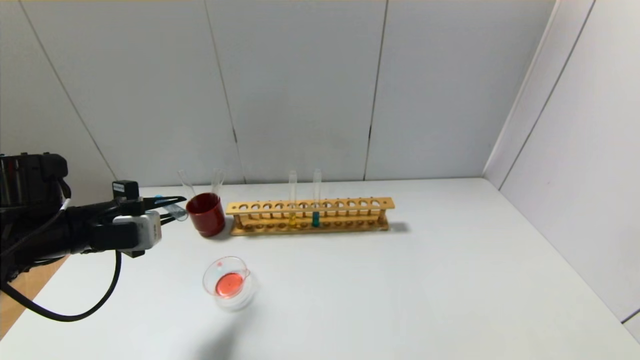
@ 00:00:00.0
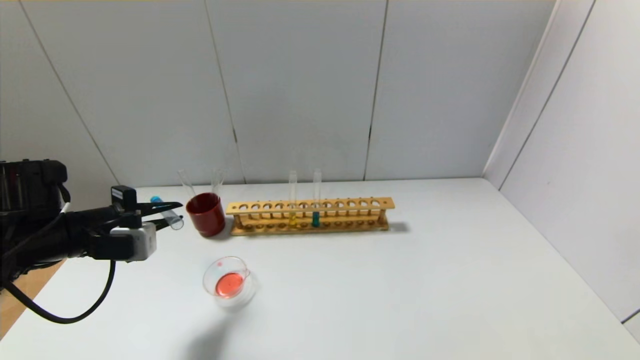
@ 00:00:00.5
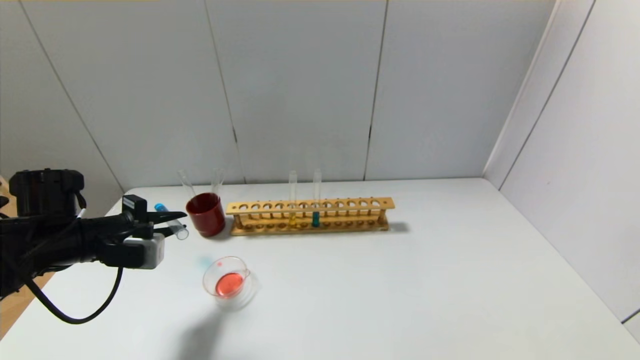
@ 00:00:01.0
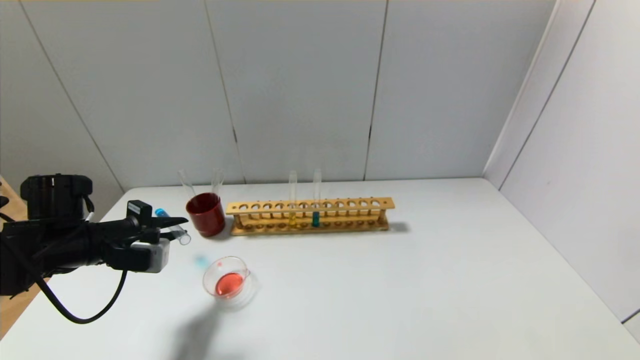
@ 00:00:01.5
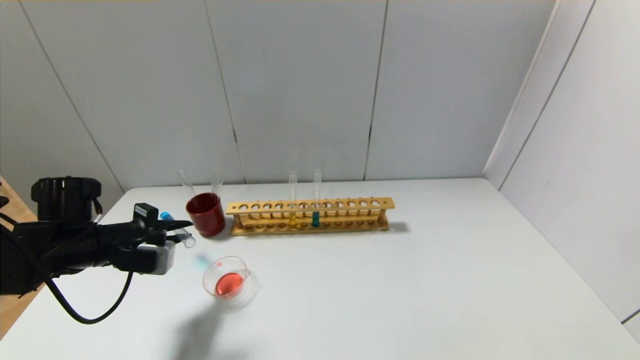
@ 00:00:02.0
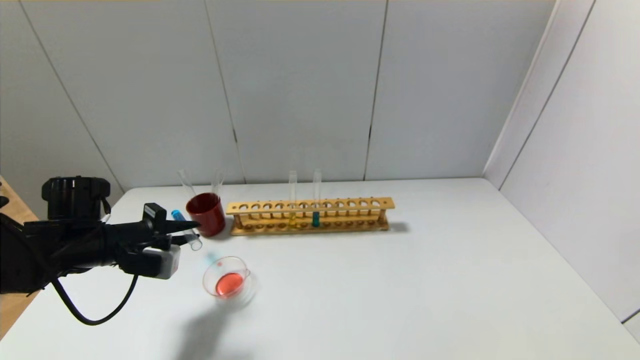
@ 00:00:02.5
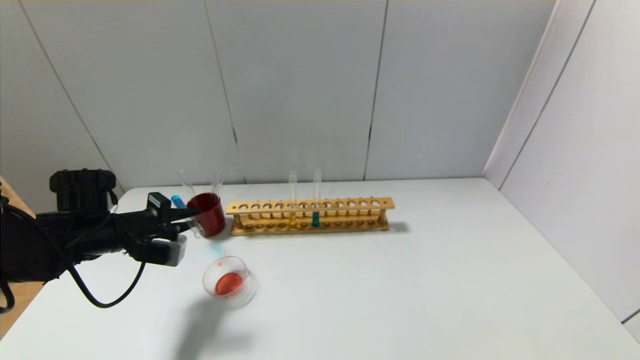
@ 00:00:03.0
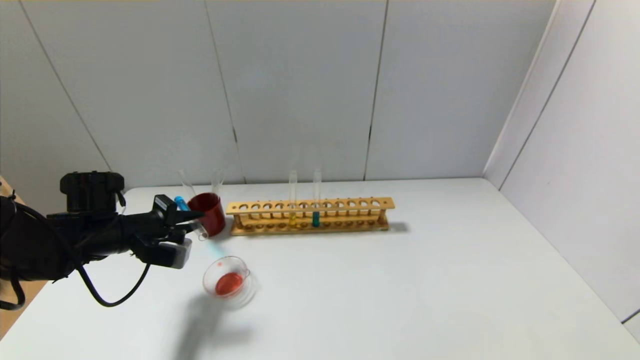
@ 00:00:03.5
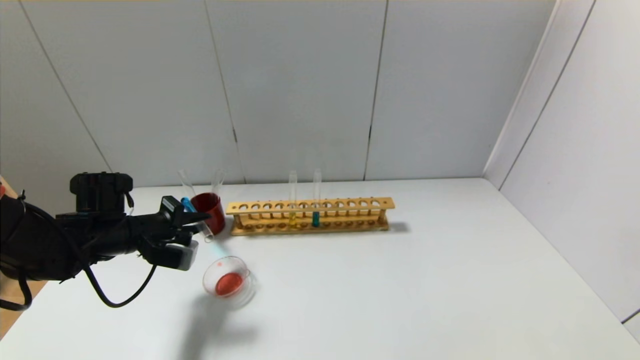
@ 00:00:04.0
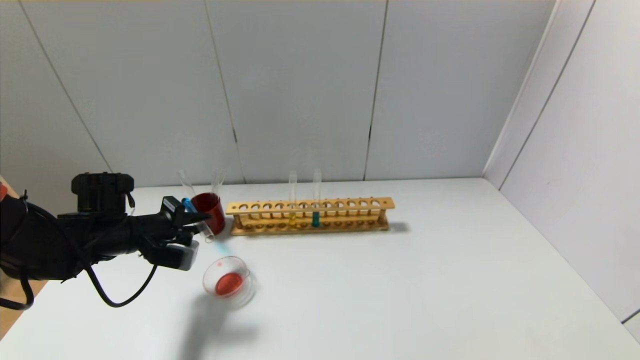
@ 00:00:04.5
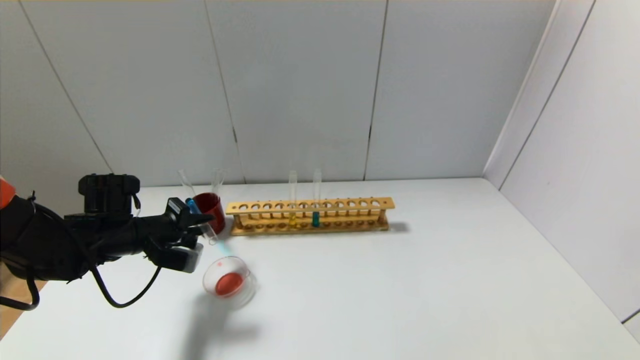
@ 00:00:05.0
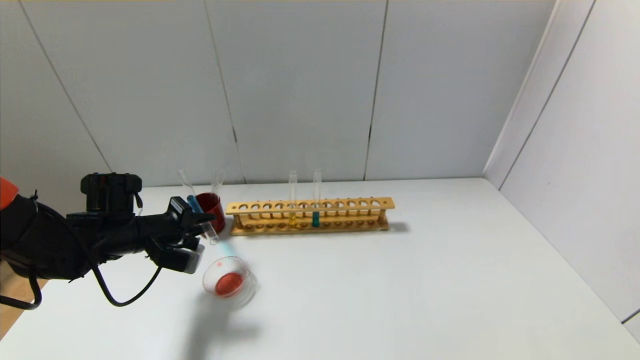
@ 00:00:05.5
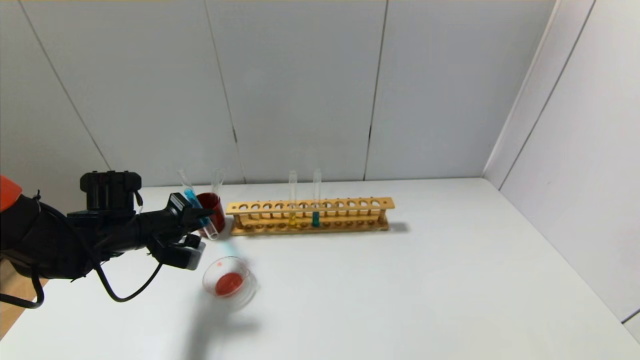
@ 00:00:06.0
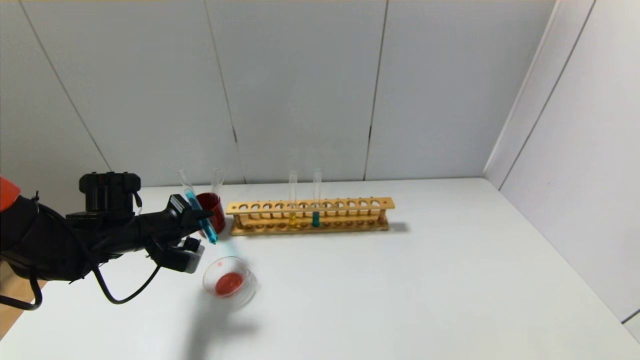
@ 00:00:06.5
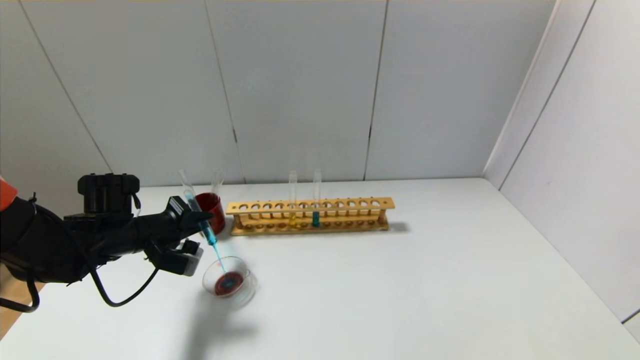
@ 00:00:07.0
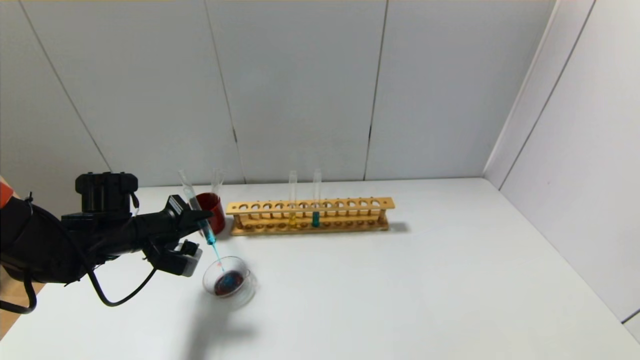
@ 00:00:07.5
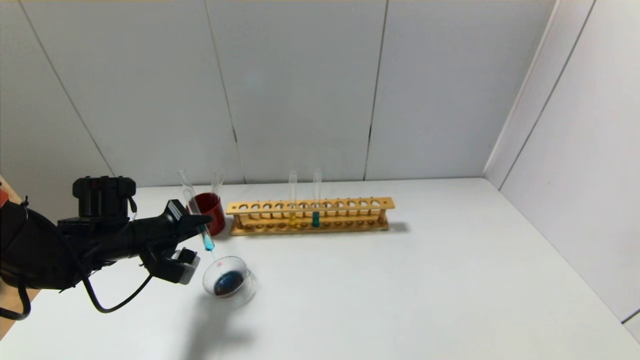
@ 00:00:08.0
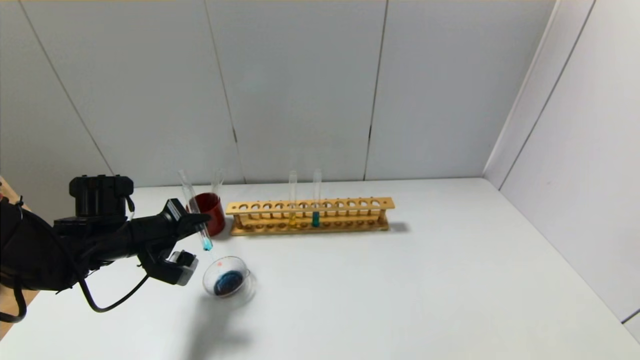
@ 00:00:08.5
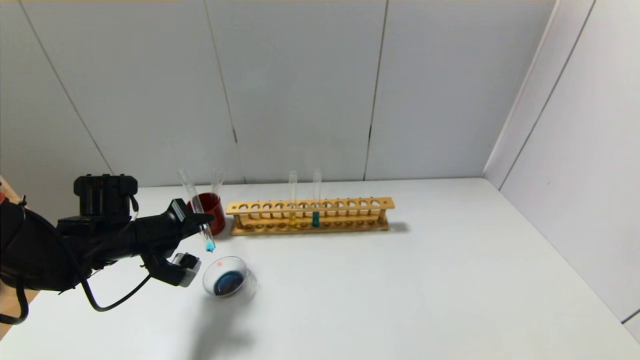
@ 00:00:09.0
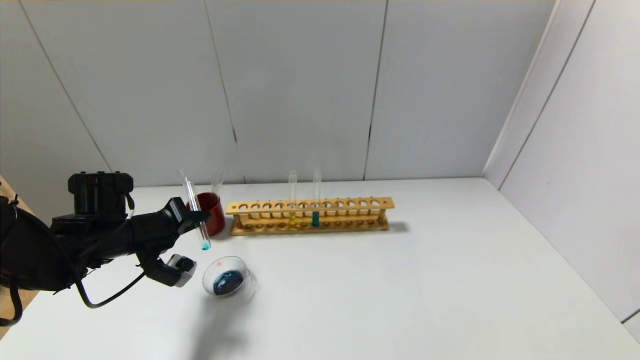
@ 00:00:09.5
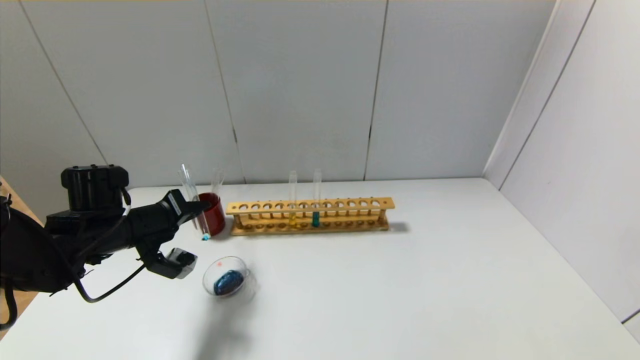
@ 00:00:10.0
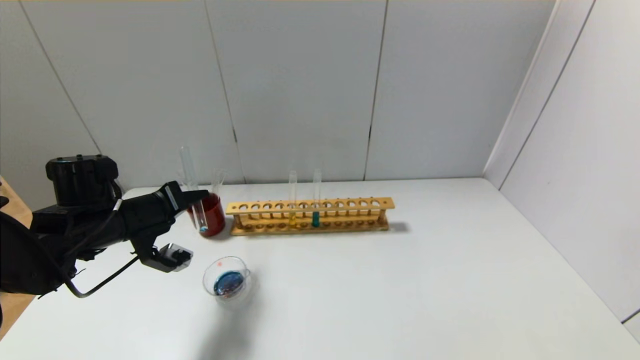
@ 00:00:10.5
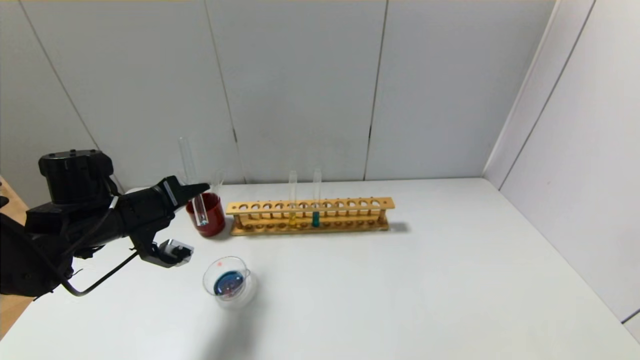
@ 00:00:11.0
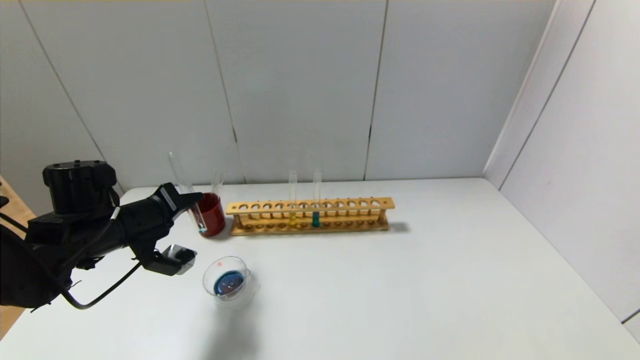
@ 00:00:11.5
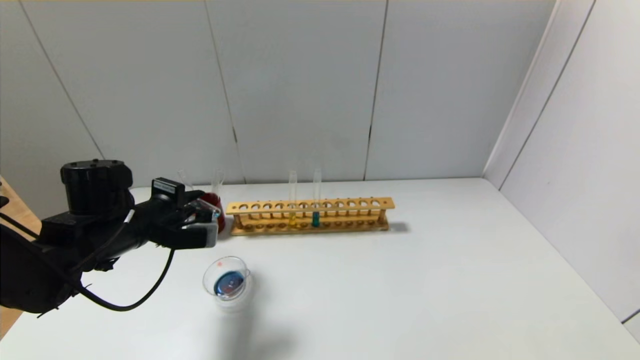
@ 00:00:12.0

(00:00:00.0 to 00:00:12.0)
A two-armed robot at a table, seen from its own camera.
Step, 00:00:00.0 - 00:00:11.5: Pour the blue reagent into the graduated cylinder with the left gripper.
00:00:00.0 - 00:00:02.0: The left gripper is displaced downward by some 5 cm.
00:00:02.0 - 00:00:06.0: There are only small adjustments of the grippers.
00:00:06.0 - 00:00:08.0: The grippers make only small movements.
00:00:08.0 - 00:00:10.0: There are only small adjustments of the grippers.

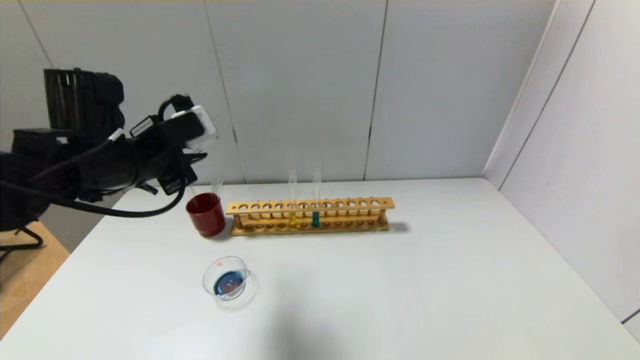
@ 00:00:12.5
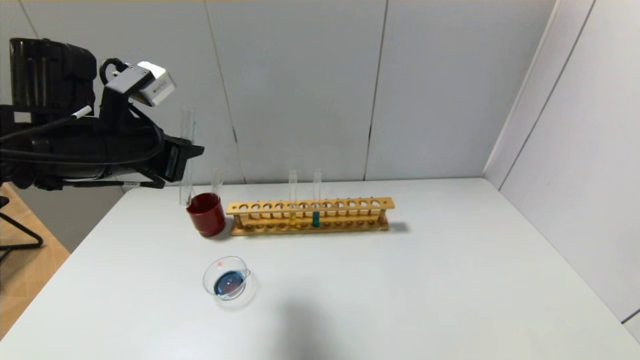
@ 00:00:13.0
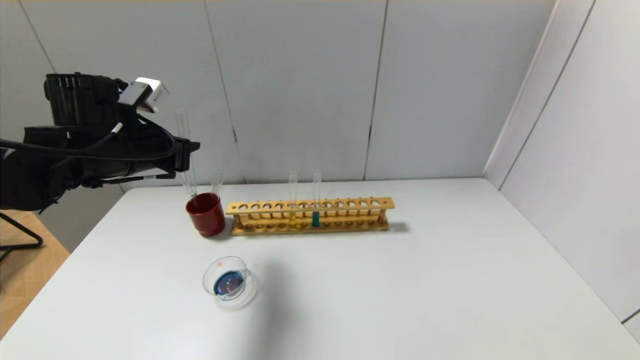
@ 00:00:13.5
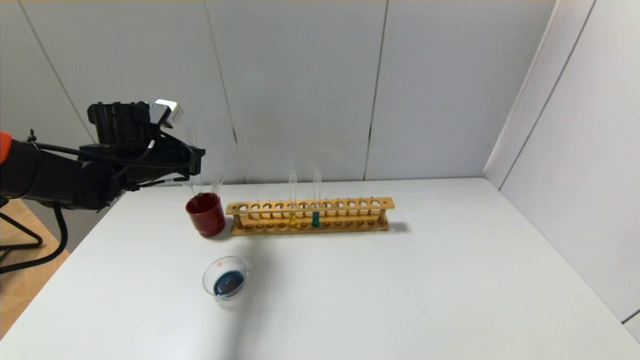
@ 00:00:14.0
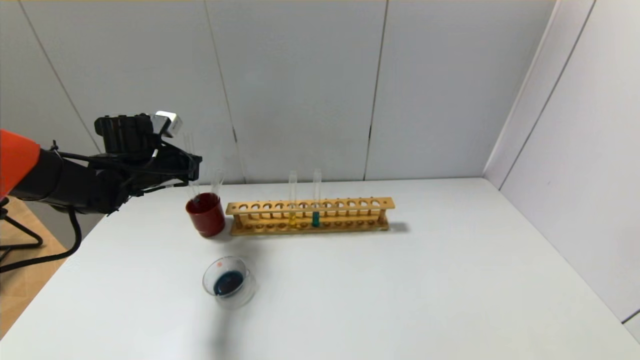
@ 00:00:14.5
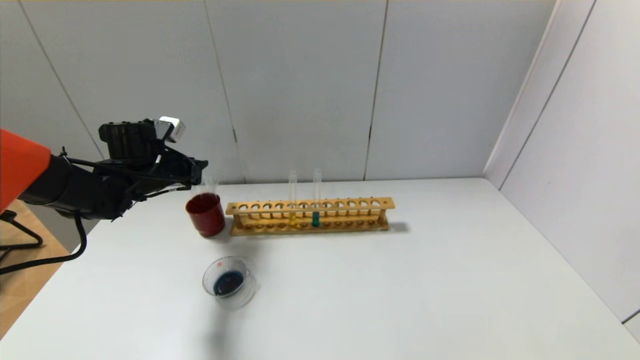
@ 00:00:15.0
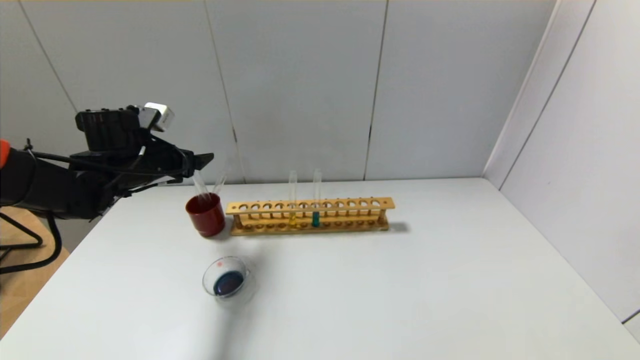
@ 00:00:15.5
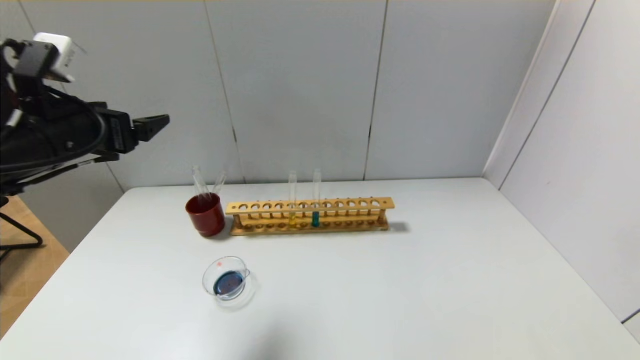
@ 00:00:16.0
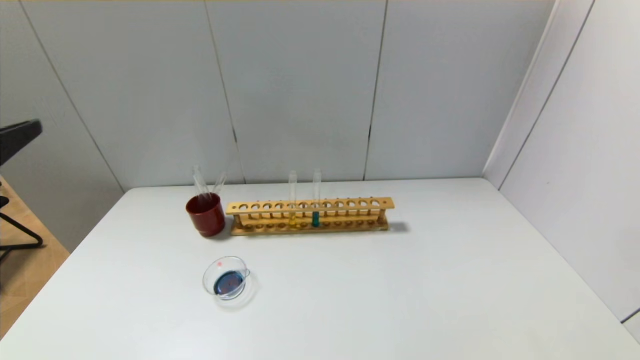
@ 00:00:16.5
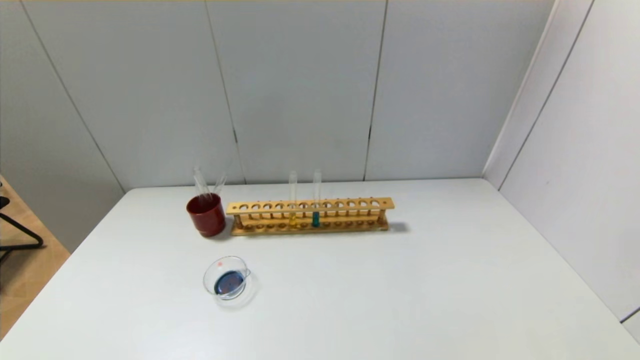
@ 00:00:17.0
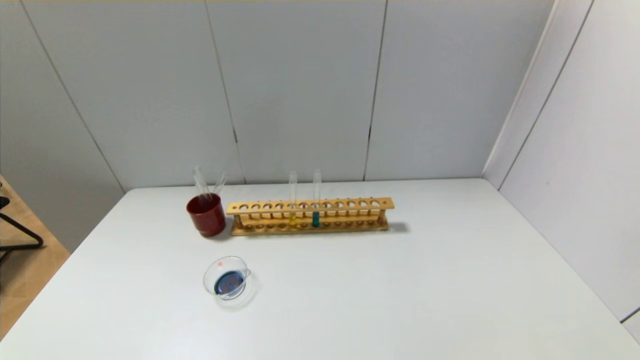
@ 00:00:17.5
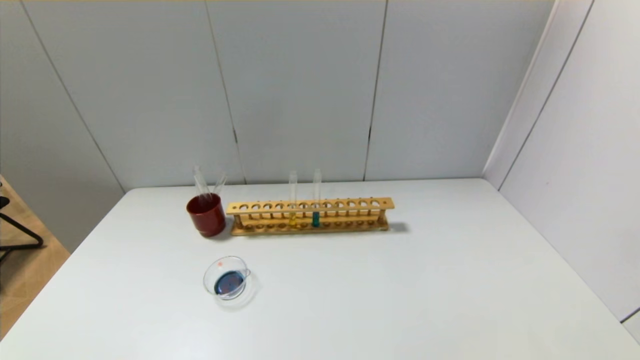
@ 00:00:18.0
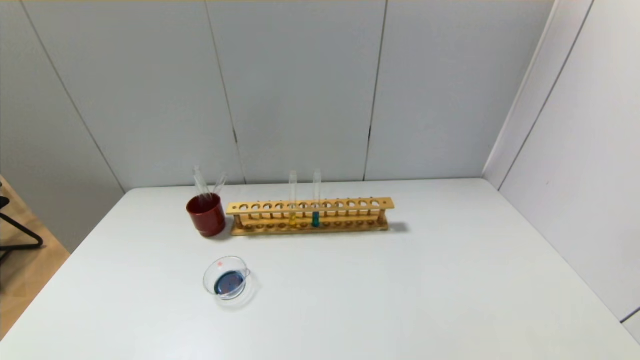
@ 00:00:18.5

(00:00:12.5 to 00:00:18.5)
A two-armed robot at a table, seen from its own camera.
Step, 00:00:12.5 - 00:00:15.0: Place the test tube into the brown cup with the left gripper.
00:00:12.5 - 00:00:14.5: The left gripper shifts roughly 15 cm forward, downward and to the left.
00:00:14.5 - 00:00:16.5: The left gripper goes about 35 cm backward and upward, and opens its fingers.
00:00:16.5 - 00:00:18.5: The left gripper moves downward and backward, roughly 25 cm.
